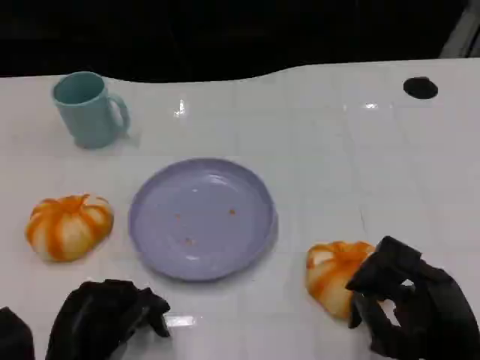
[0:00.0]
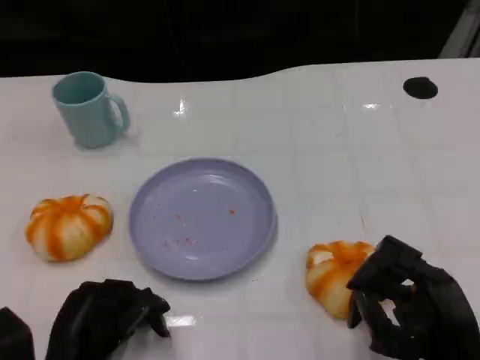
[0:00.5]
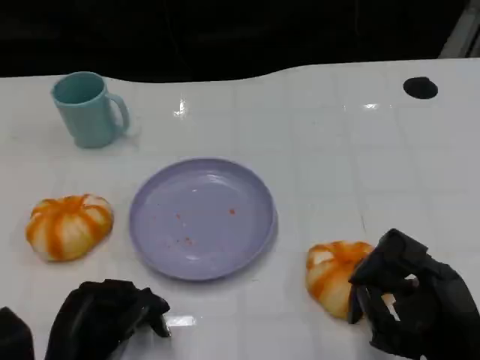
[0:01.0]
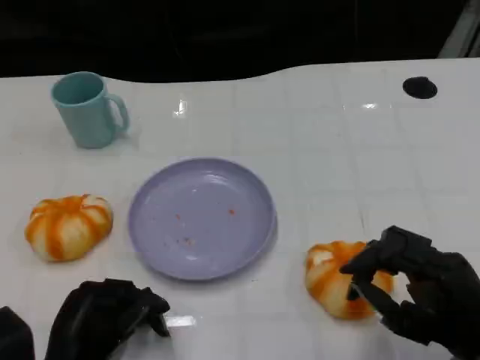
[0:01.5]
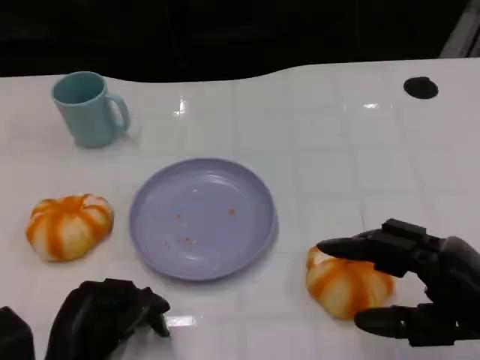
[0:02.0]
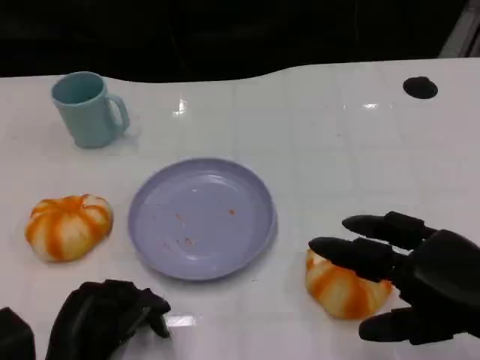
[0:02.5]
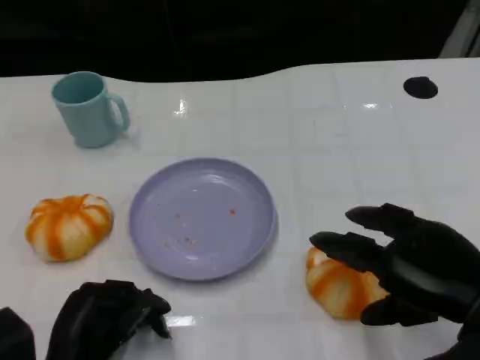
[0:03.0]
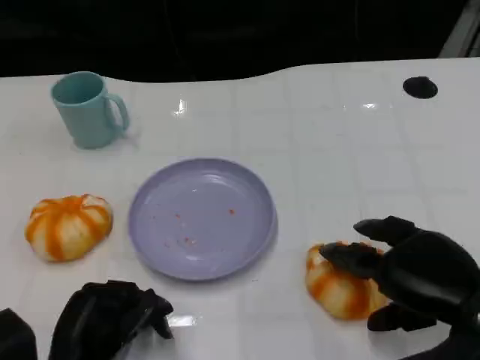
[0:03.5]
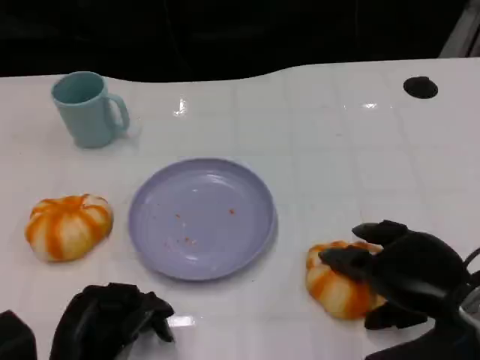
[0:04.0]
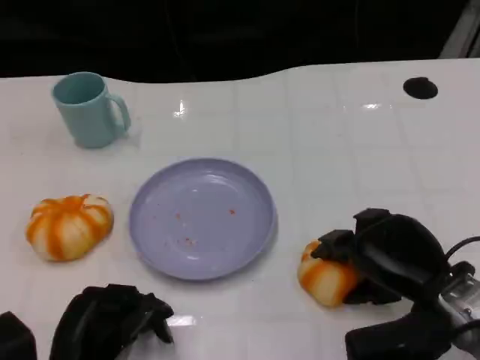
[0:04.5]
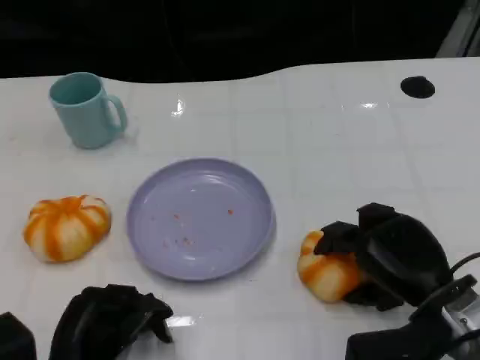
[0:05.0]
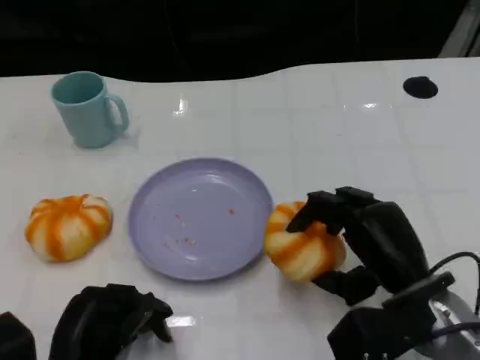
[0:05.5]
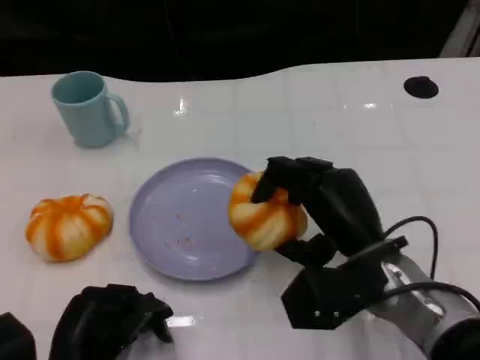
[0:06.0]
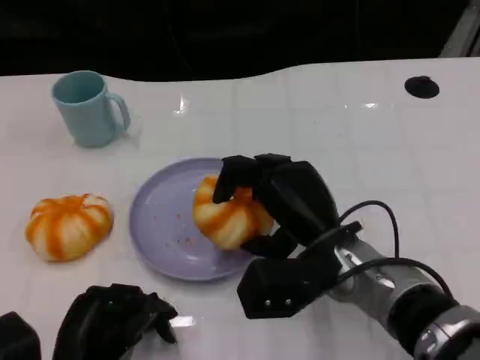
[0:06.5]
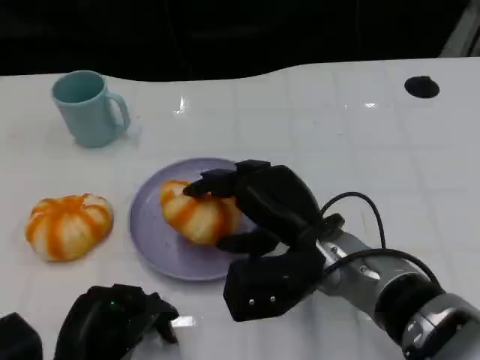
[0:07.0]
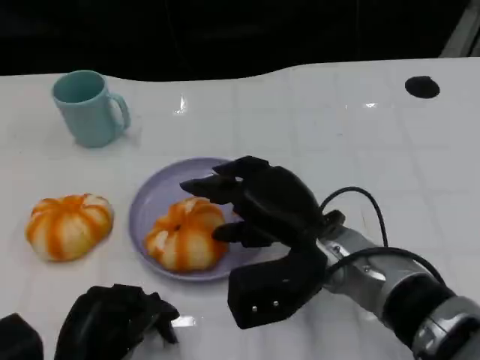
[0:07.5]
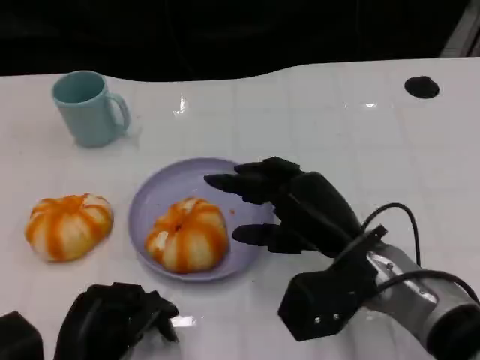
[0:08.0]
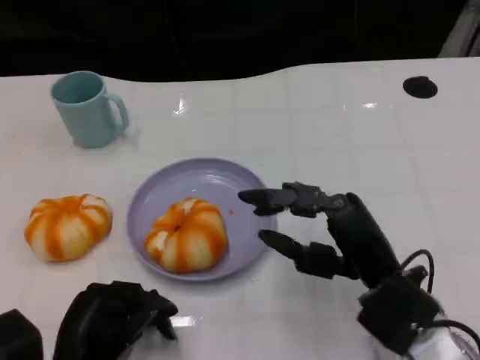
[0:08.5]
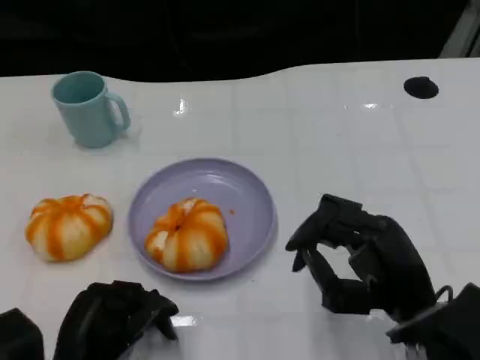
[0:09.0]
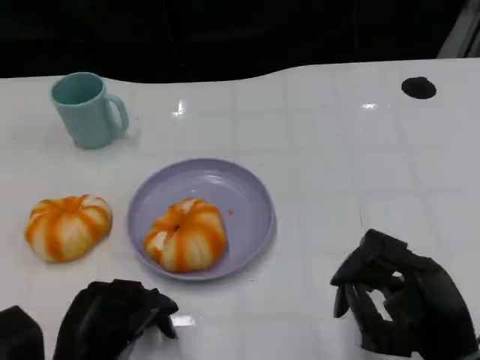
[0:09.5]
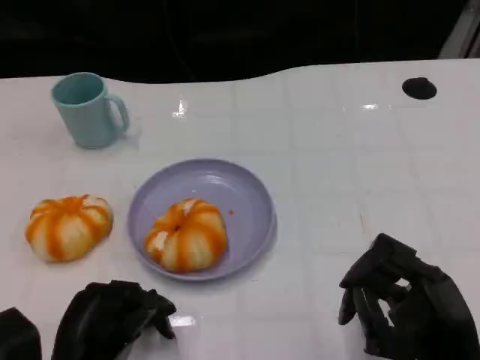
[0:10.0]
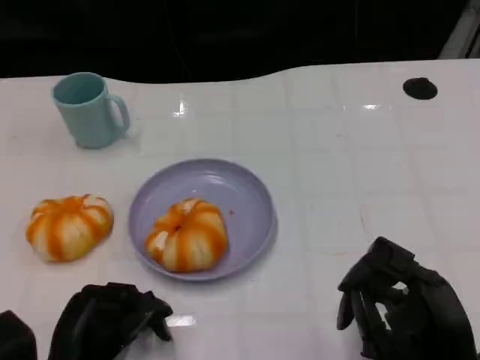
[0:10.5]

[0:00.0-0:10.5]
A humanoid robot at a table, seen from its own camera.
Task of the whole recording: Grasp the bread from the table and place it into the plate.
0:00.0 to 0:02.0: The right hand is displaced upward by roughly 5 cm.
0:02.0 to 0:04.0: The right hand moves about 5 cm.
0:04.0 to 0:06.5: The right hand moves to the left, approximately 15 cm.
0:06.5 to 0:08.5: The right hand travels to the right by some 5 cm.
0:08.5 to 0:10.5: The right hand shifts some 10 cm backward and to the right.

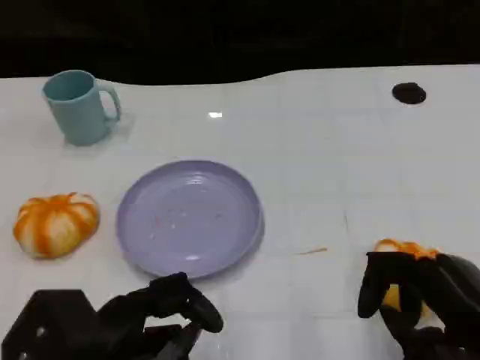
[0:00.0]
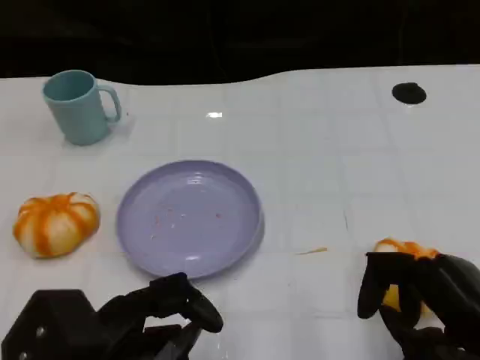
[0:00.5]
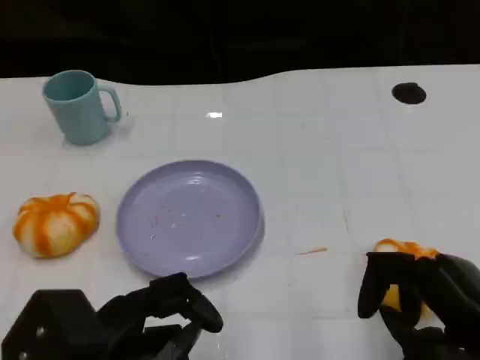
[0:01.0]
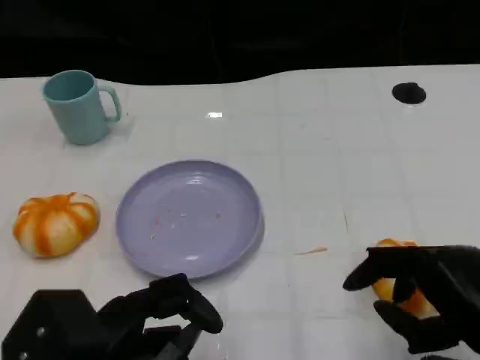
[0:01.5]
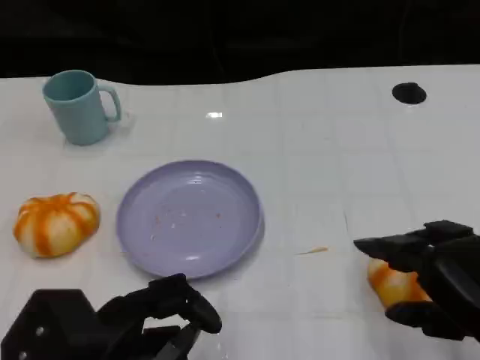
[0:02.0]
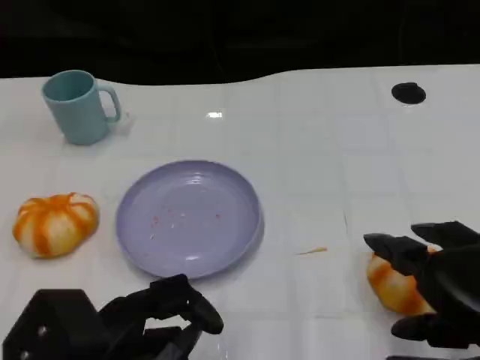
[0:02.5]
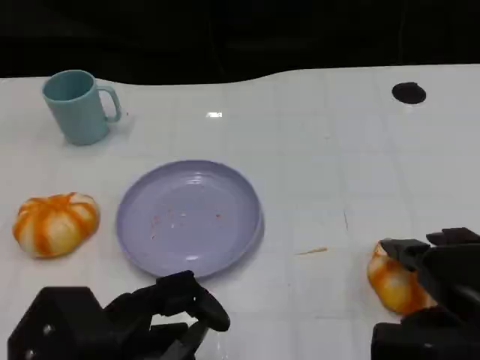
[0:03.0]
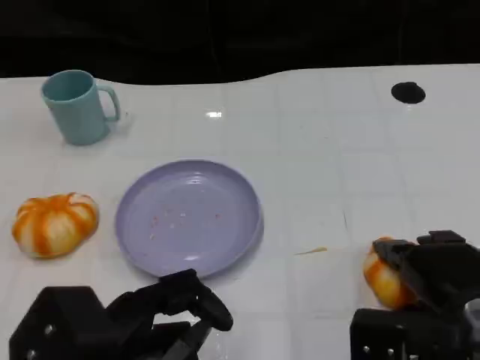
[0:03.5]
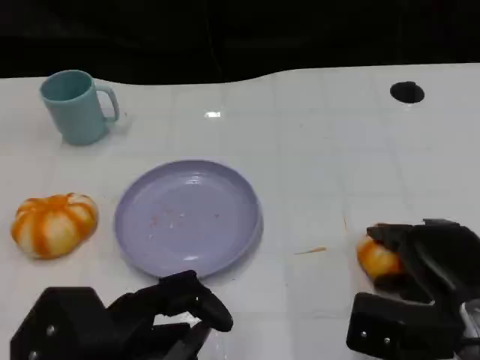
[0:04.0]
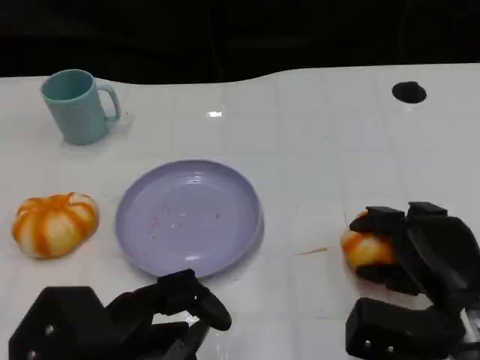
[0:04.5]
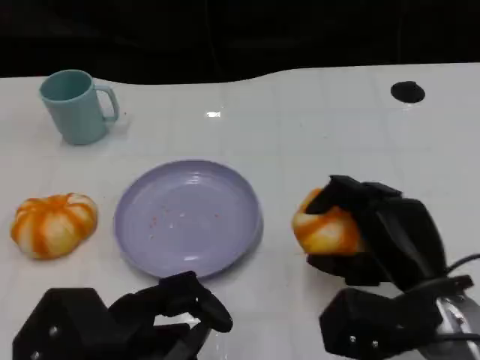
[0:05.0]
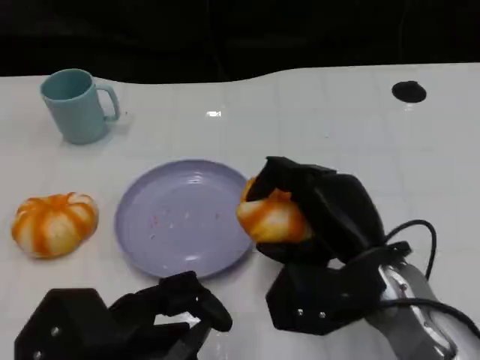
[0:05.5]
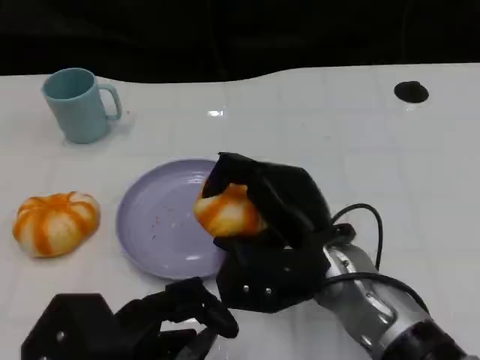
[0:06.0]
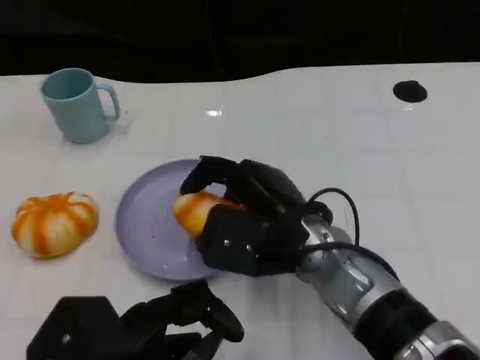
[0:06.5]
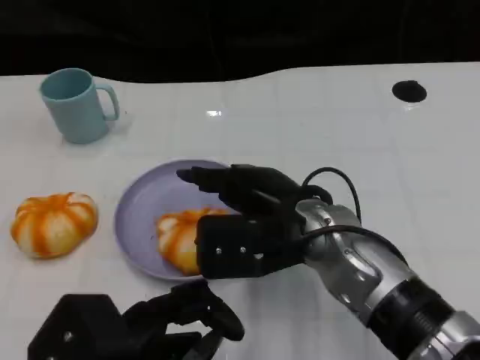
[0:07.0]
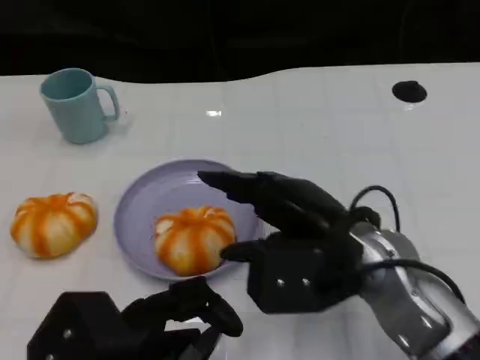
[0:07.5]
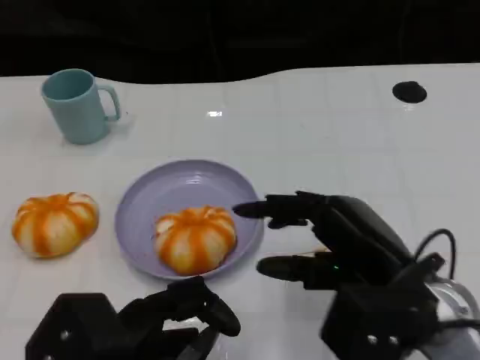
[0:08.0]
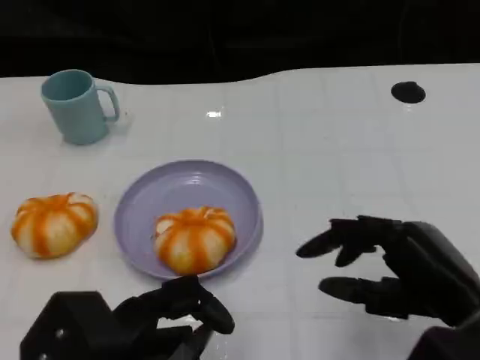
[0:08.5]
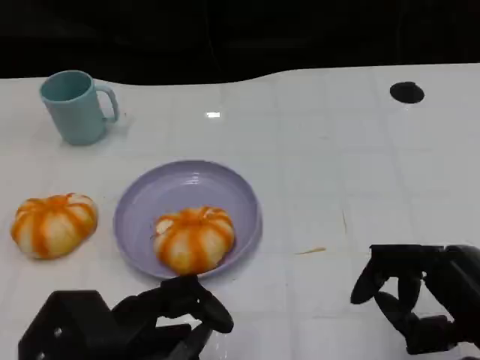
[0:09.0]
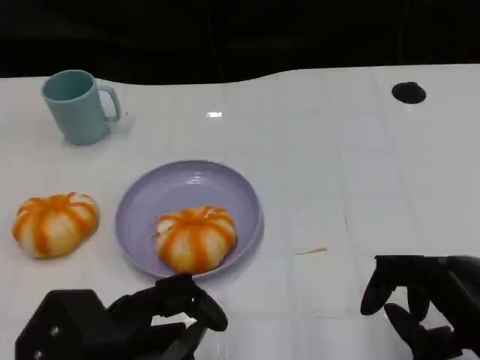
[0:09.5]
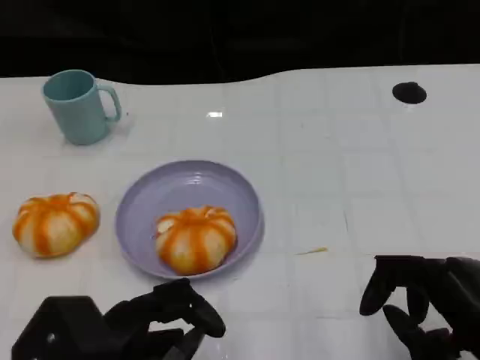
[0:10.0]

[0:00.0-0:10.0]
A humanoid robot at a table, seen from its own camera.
Task of the whole recording: Grasp the bread from the table and place it into the plate.
0:02.0 to 0:04.0: The right hand travels downward and forward by approximately 10 cm.
0:04.0 to 0:06.0: The right hand heads to the left, covering about 15 cm.
0:06.0 to 0:08.0: The right hand shifts approximately 10 cm to the right.
0:08.0 to 0:10.0: The right hand moves to the right and backward, approximately 10 cm.

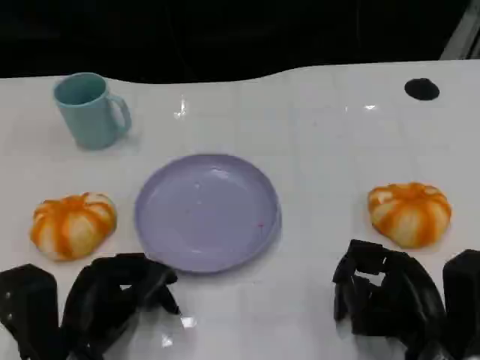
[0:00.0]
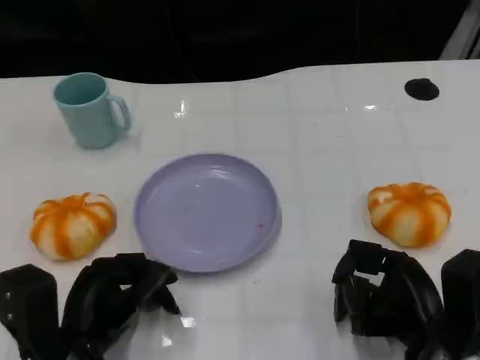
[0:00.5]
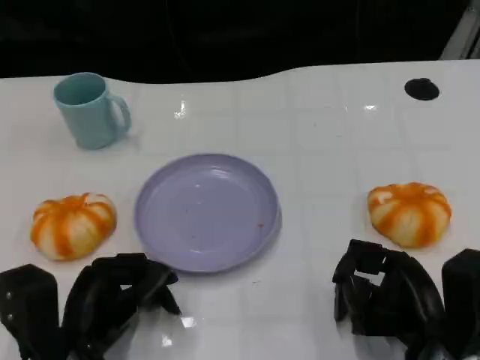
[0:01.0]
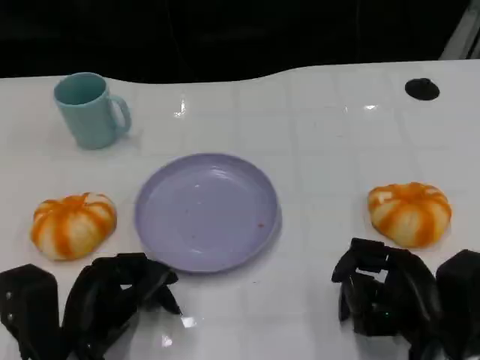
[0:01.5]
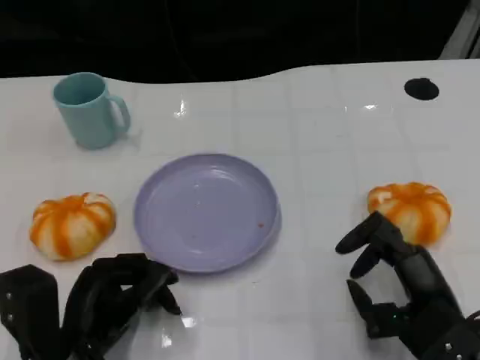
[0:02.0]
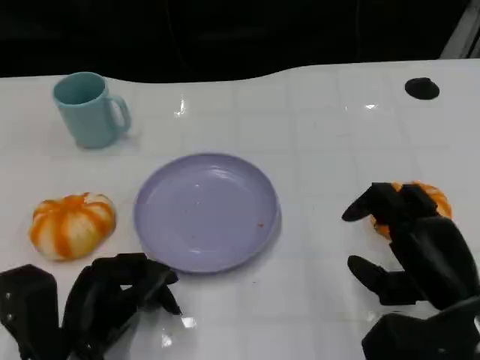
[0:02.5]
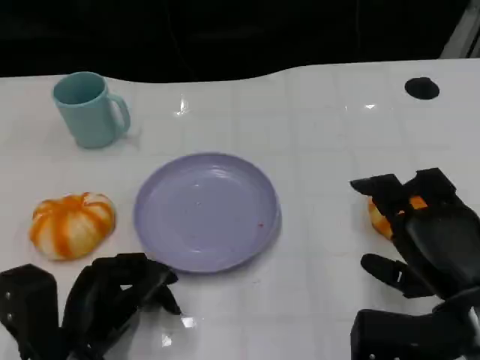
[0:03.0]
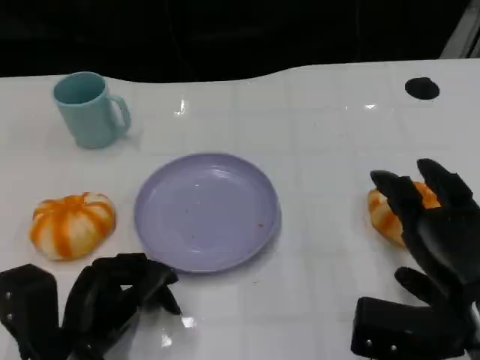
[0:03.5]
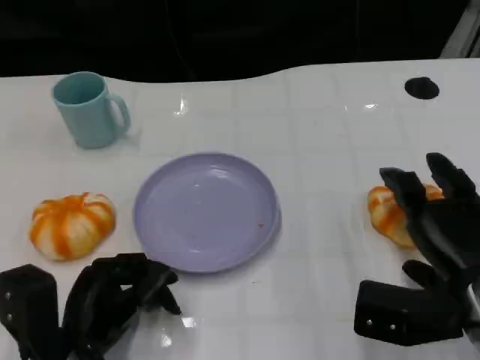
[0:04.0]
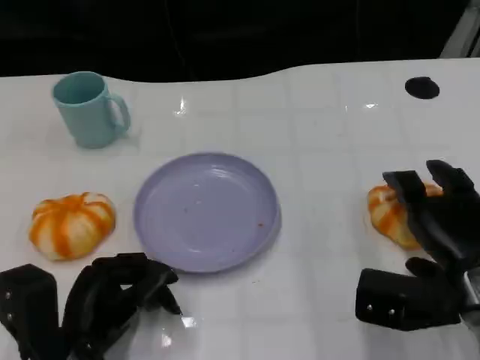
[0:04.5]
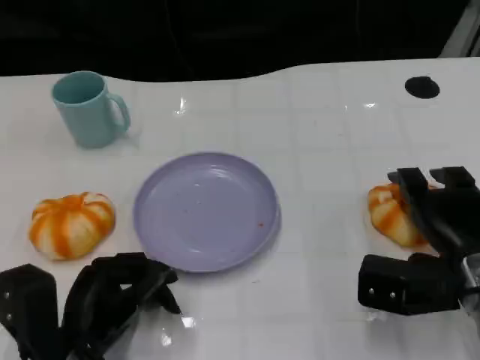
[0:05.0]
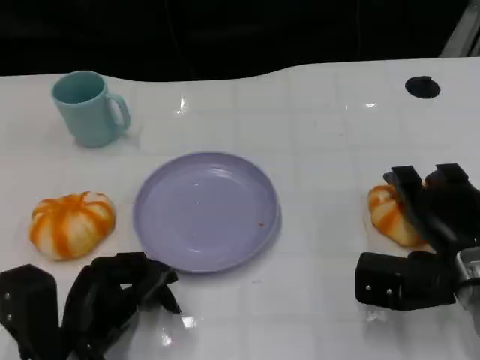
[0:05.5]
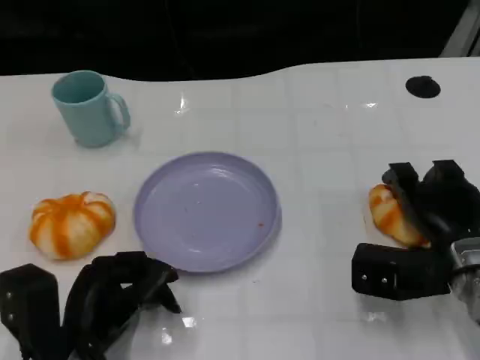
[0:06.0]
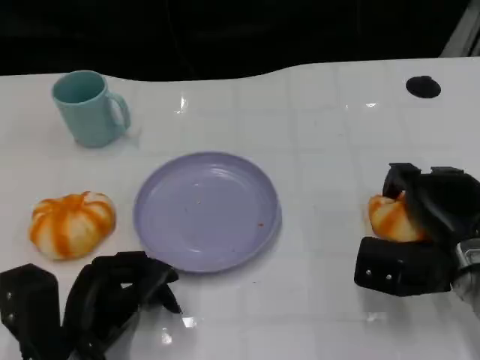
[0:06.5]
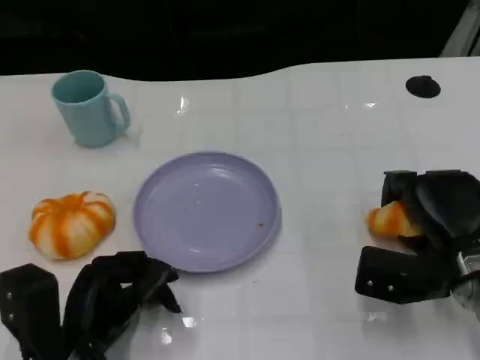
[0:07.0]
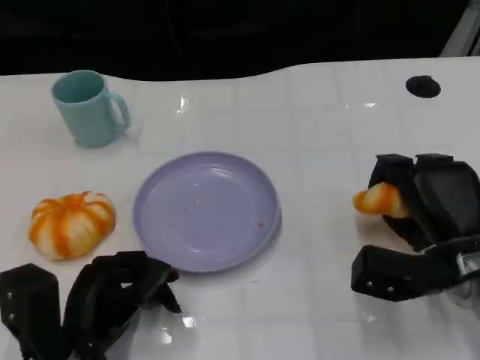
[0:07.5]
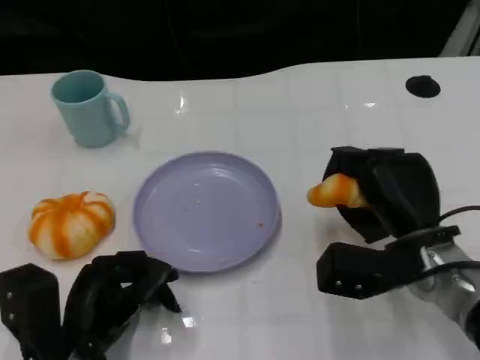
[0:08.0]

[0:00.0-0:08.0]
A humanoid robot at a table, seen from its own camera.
Task of the whole recording: Grasp the bread from the table and place it into the plate.
0:02.0 to 0:04.0: The right hand shifts by approximately 5 cm.
0:04.0 to 0:06.0: The right hand travels forward by about 5 cm.
